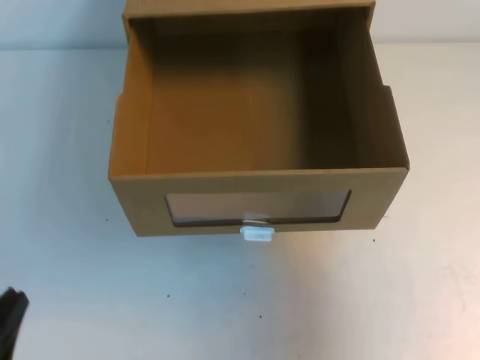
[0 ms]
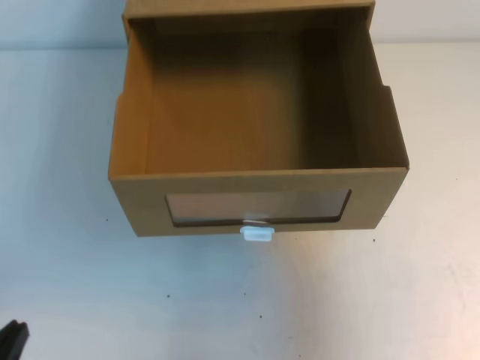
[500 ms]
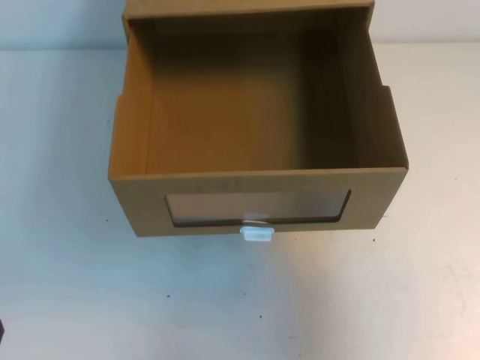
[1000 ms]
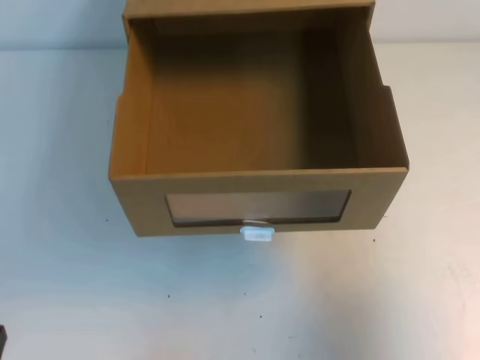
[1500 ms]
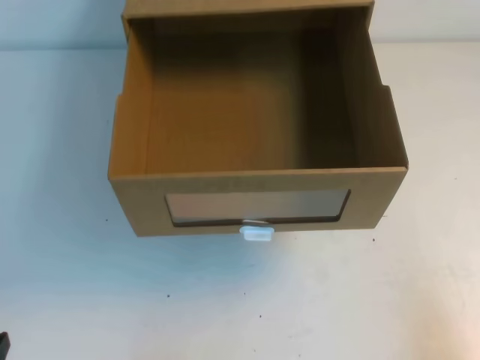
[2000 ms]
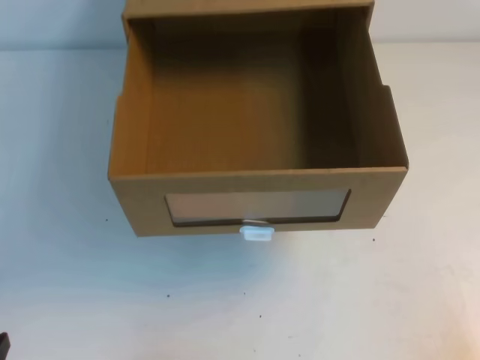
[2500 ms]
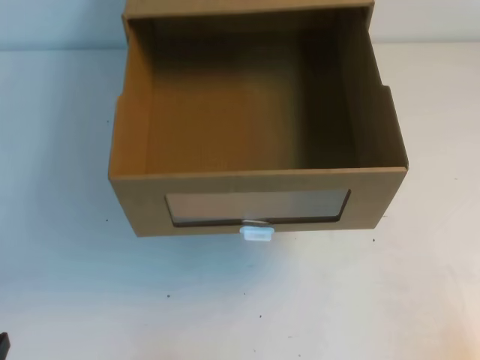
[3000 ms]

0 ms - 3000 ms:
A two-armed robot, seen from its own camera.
Task of the whole recording: open the shoebox on the table.
Step, 0 ms - 3000 ms: Open the shoe box.
0 ms - 1500 ms: The left gripper travels downward by roughly 5 cm.
1500 ms - 3000 ms: The right gripper goes approximately 20 cm backward and downward.
